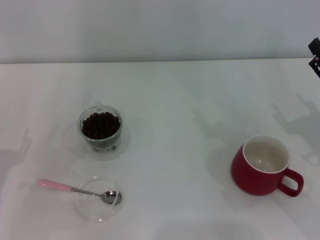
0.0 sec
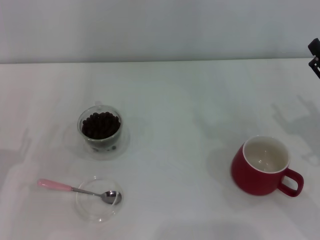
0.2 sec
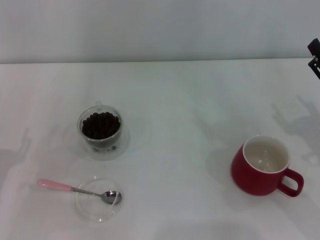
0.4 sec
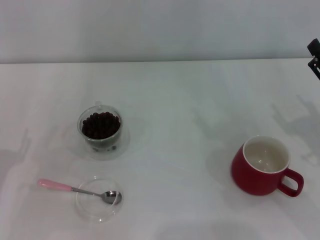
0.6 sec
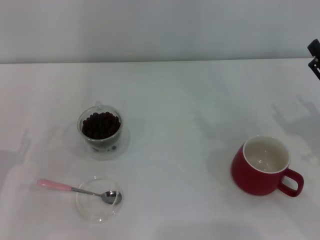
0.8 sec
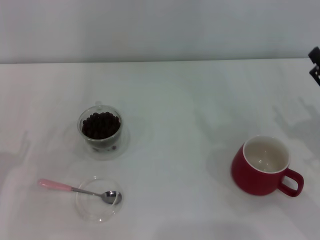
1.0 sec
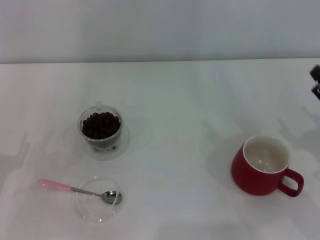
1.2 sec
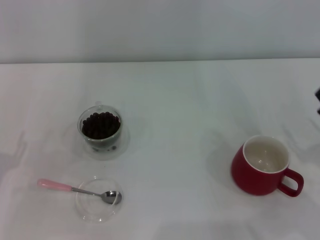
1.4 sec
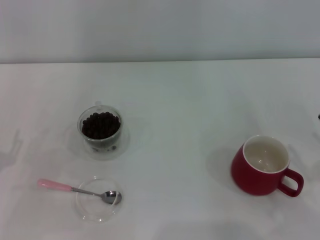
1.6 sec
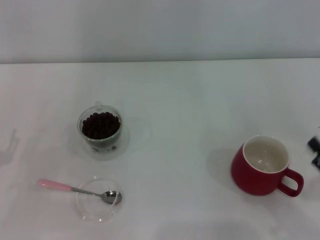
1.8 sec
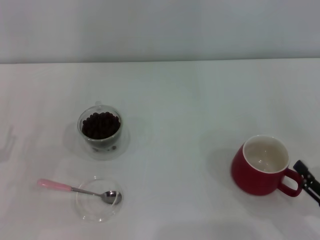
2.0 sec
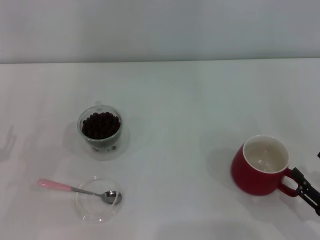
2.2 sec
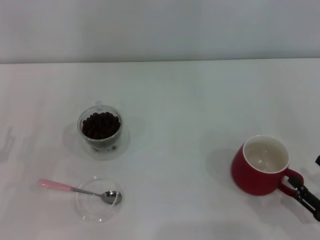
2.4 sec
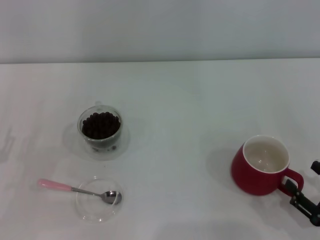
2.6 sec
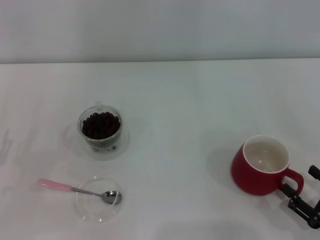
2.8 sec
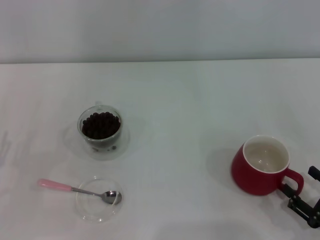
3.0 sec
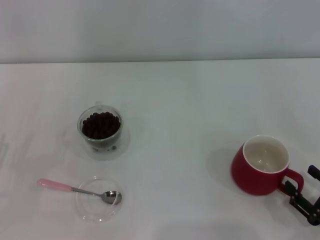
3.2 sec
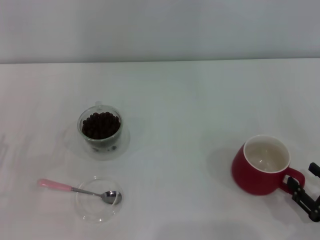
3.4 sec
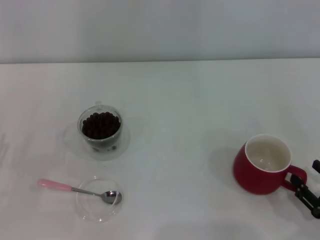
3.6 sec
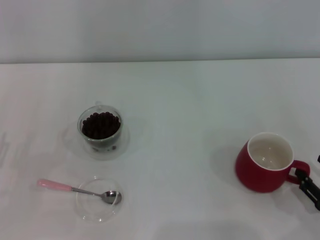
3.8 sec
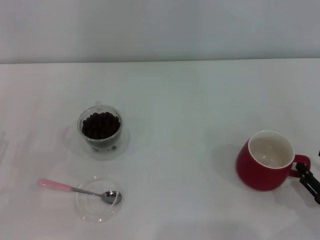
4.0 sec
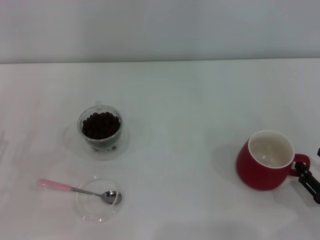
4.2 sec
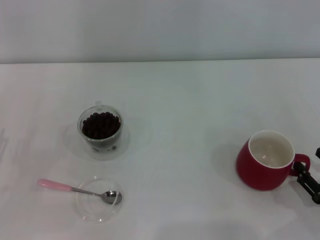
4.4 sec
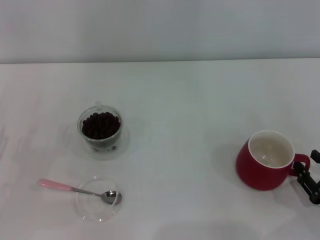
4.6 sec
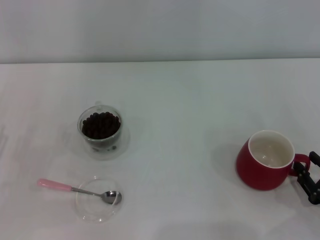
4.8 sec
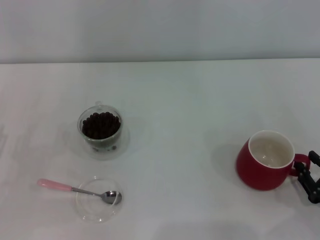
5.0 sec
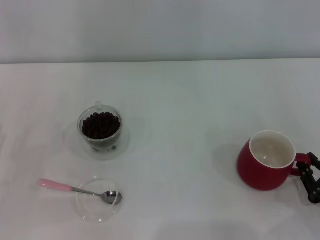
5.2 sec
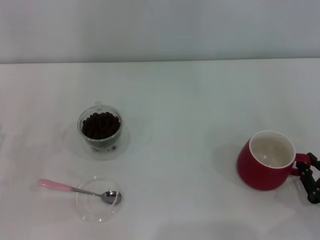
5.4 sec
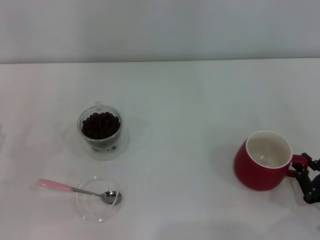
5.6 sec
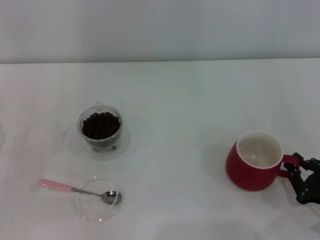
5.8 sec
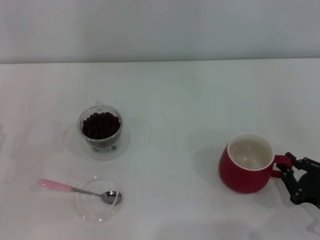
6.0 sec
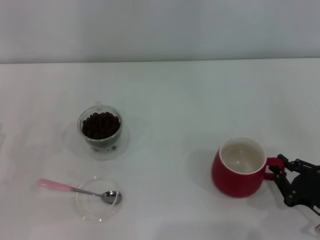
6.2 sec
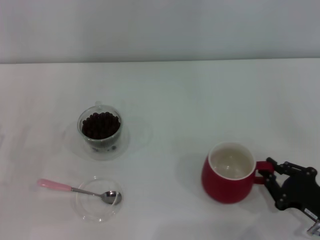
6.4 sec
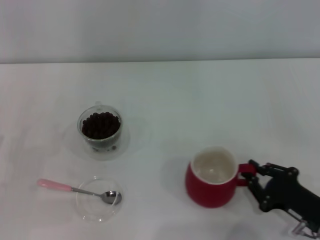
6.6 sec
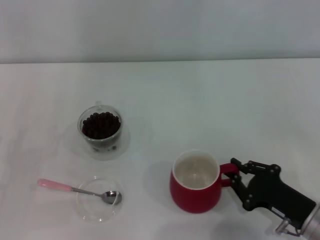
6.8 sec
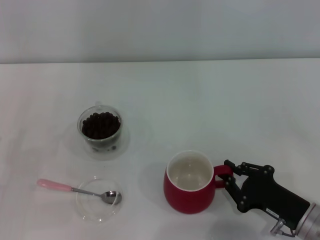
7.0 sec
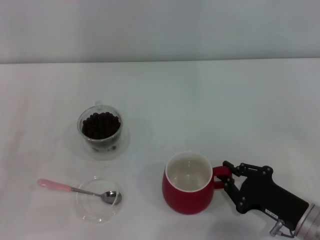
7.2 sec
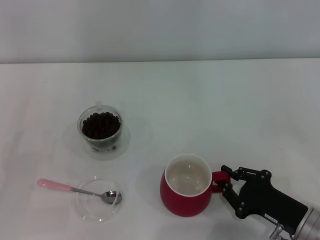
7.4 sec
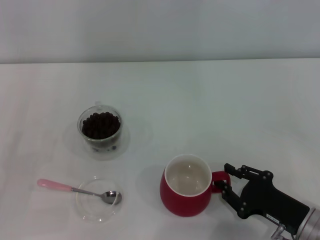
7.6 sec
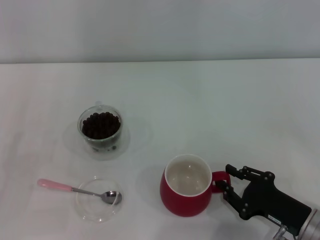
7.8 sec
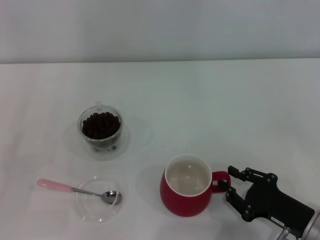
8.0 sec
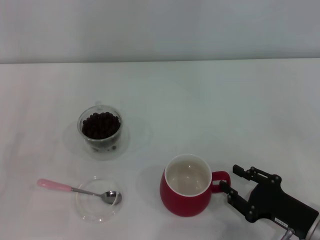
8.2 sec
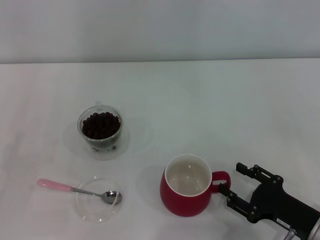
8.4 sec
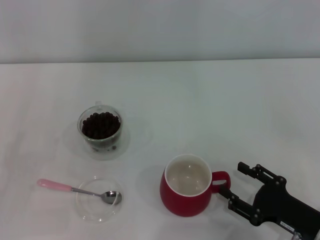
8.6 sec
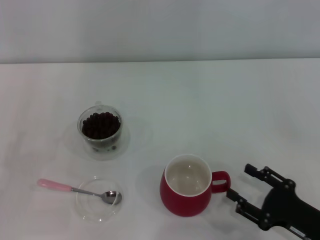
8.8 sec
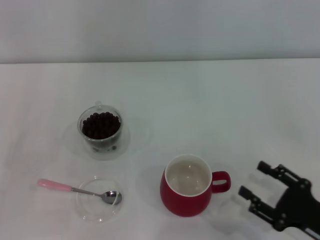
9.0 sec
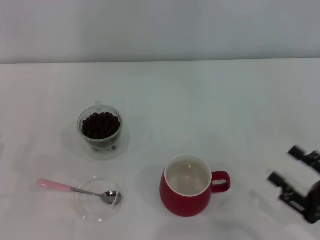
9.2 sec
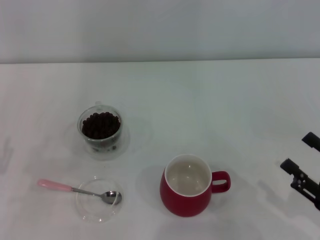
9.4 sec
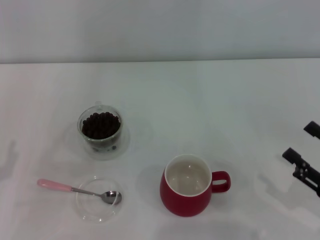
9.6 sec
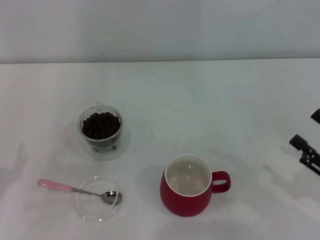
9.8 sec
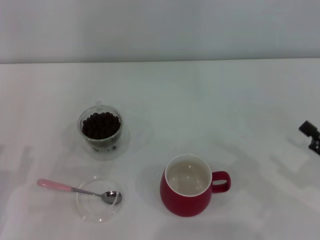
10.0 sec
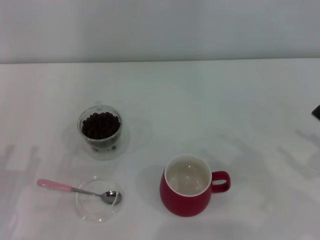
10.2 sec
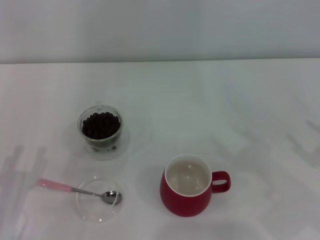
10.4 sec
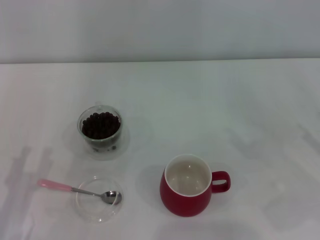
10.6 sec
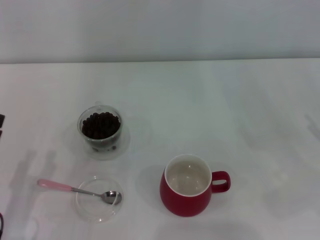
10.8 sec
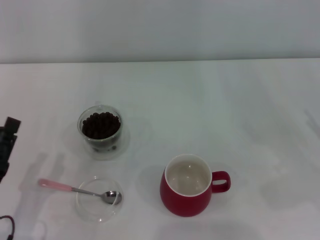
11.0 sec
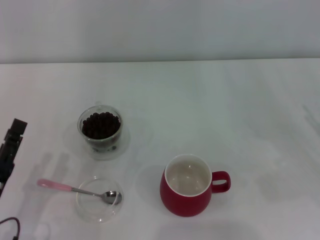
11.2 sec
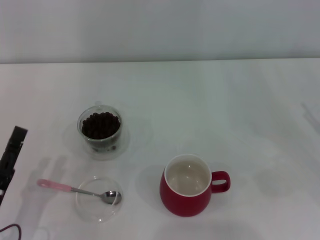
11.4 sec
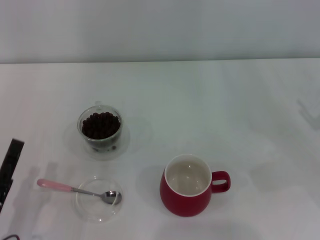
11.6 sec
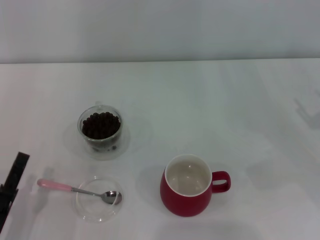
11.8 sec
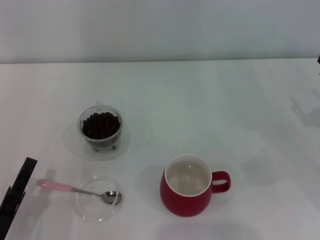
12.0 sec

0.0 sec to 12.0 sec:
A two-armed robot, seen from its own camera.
Task of the whole recording: Use a pink spoon to take out the coffee beans from the glass and pour them into the red cup.
Step, 0.0 sec to 8.6 sec: Move the cup to the center of view with the left gripper.
1.6 sec to 3.0 sec: The right gripper goes approximately 5 cm downward.
3.0 sec to 4.4 sec: The grippers stay close to where they were, moving slightly.
4.4 sec to 6.0 sec: The right gripper closes up.
6.0 sec to 7.6 sec: The right gripper moves to the left, some 5 cm.
7.6 sec to 9.0 sec: The right gripper changes place by approximately 5 cm, and opens.
9.0 sec to 10.4 sec: The right gripper shifts about 10 cm to the right, upward and forward.
10.4 sec to 12.0 sec: The left gripper shifts by approximately 5 cm.

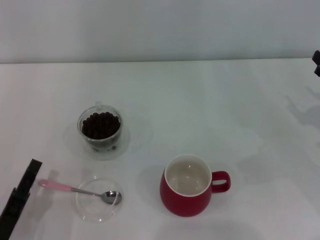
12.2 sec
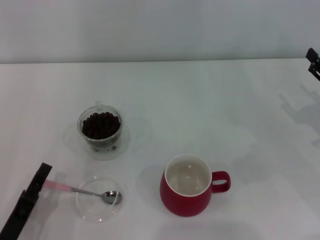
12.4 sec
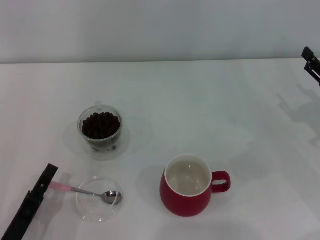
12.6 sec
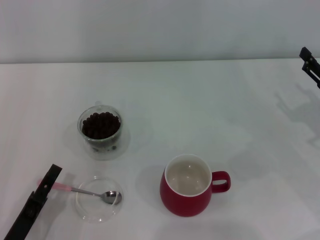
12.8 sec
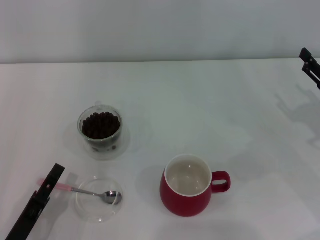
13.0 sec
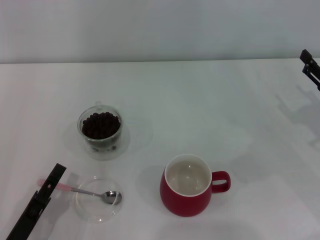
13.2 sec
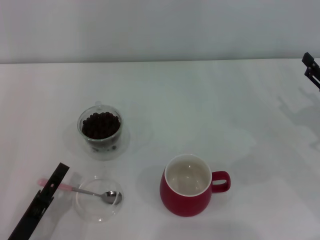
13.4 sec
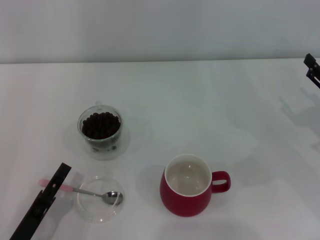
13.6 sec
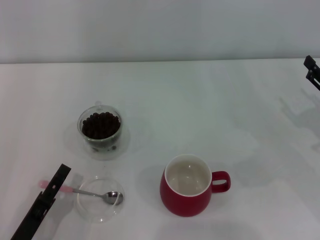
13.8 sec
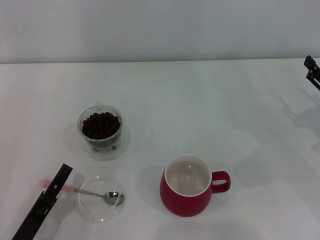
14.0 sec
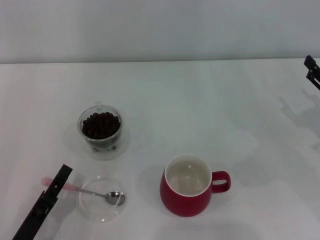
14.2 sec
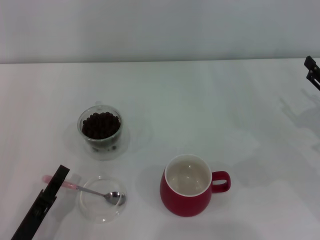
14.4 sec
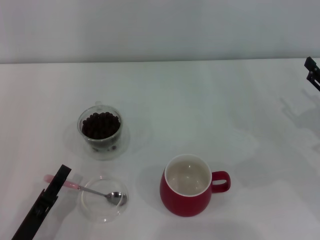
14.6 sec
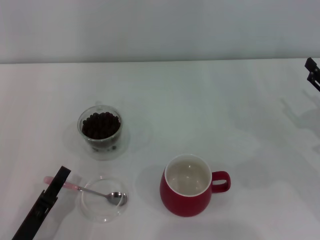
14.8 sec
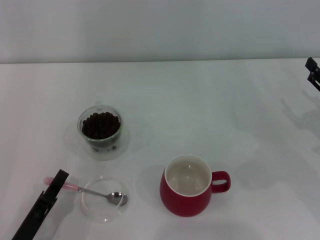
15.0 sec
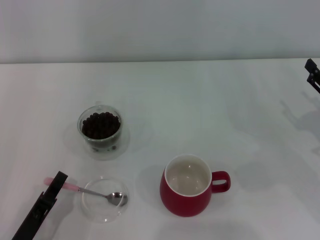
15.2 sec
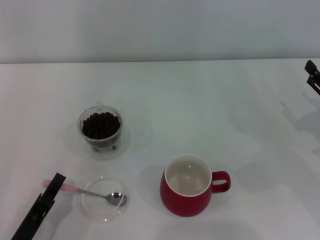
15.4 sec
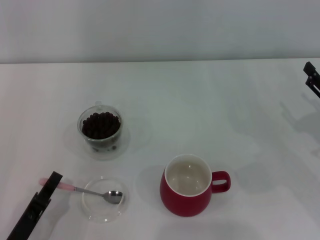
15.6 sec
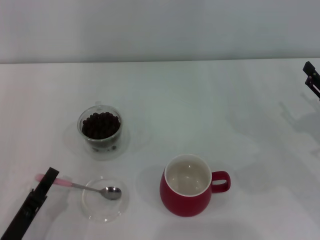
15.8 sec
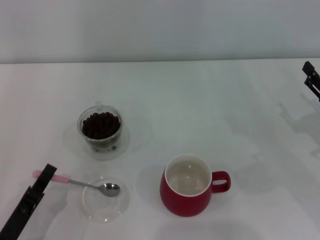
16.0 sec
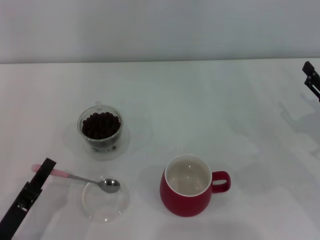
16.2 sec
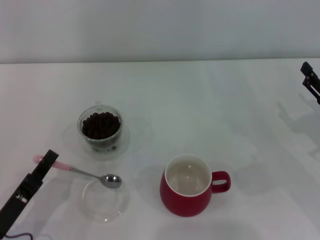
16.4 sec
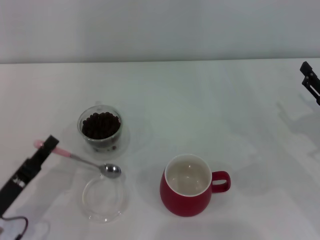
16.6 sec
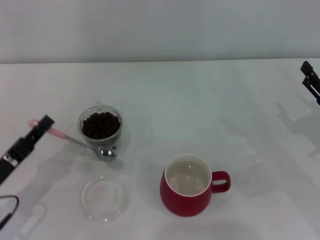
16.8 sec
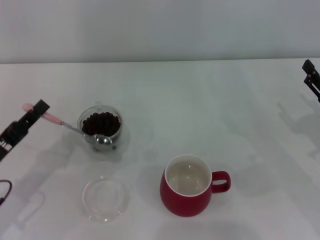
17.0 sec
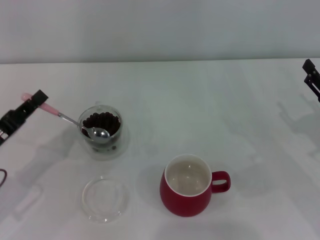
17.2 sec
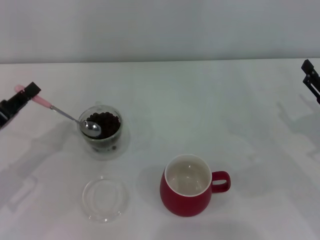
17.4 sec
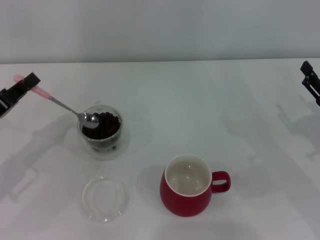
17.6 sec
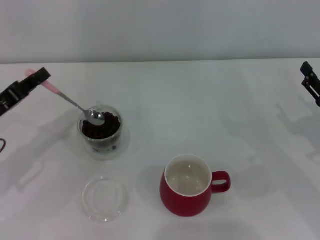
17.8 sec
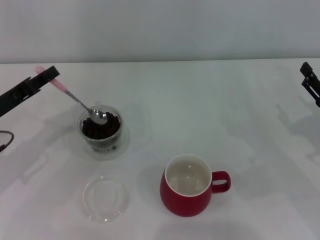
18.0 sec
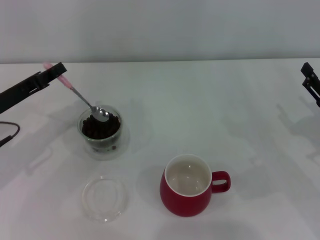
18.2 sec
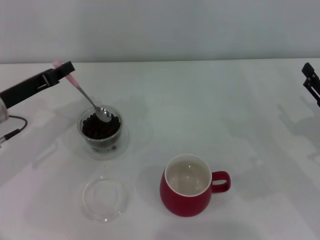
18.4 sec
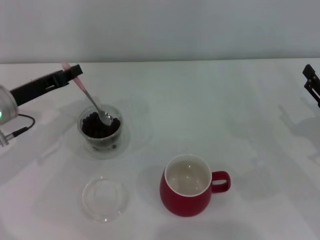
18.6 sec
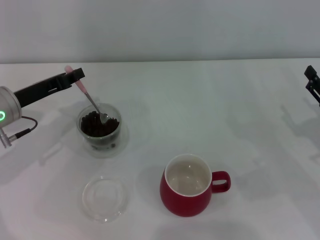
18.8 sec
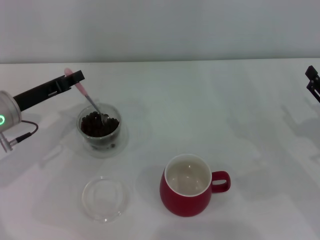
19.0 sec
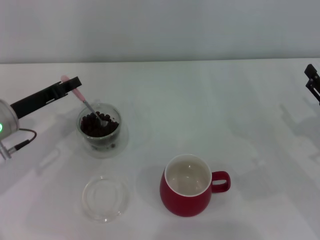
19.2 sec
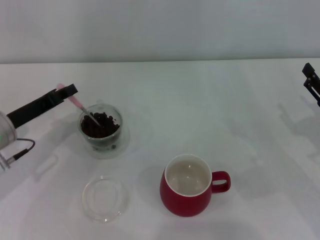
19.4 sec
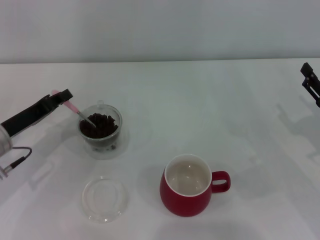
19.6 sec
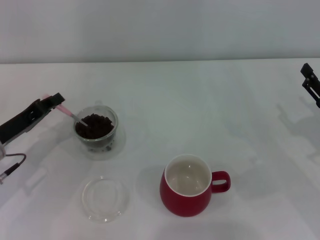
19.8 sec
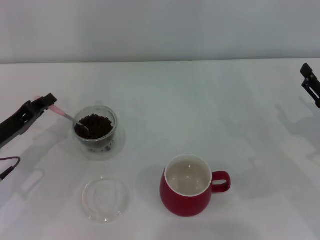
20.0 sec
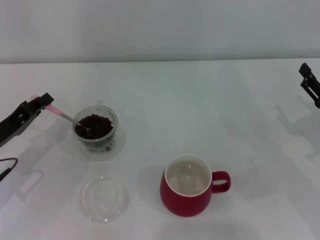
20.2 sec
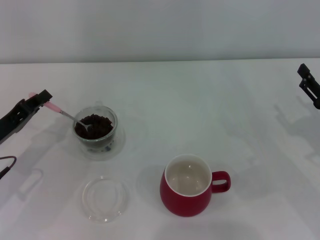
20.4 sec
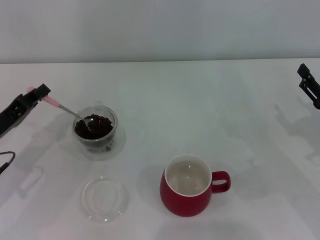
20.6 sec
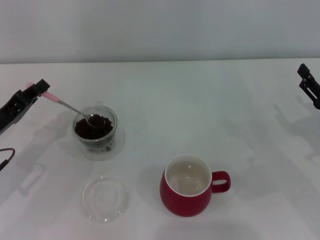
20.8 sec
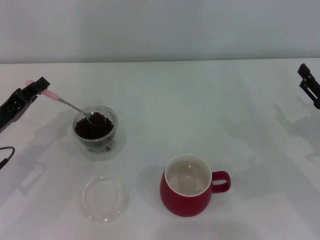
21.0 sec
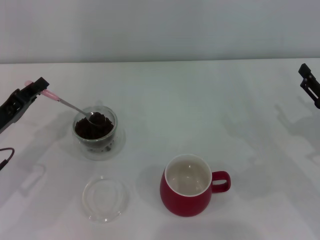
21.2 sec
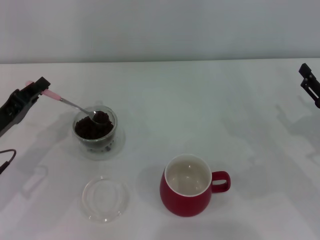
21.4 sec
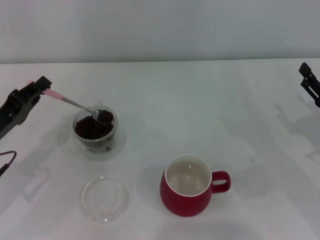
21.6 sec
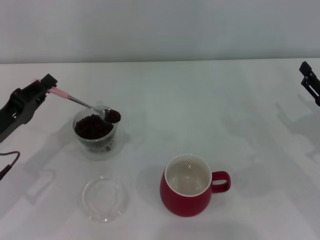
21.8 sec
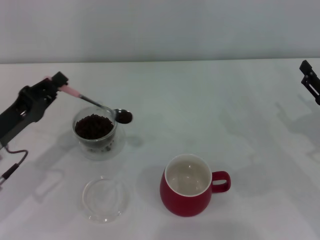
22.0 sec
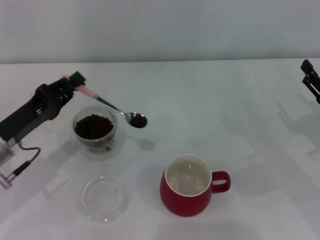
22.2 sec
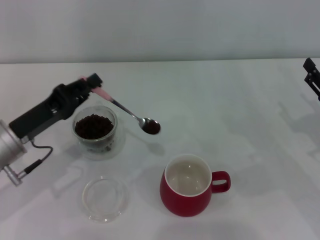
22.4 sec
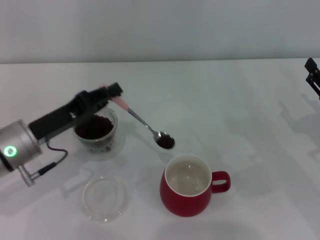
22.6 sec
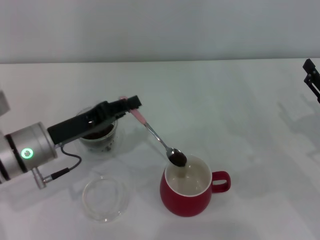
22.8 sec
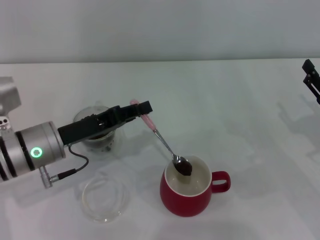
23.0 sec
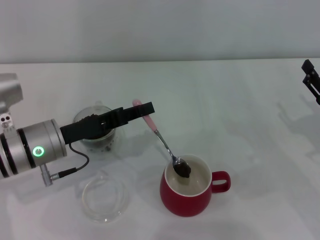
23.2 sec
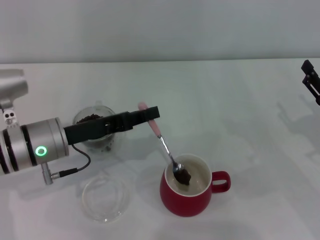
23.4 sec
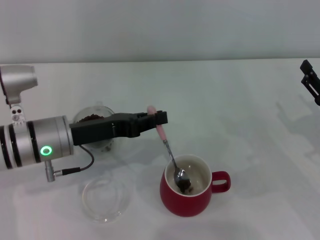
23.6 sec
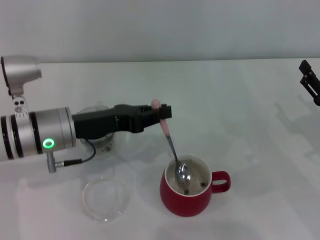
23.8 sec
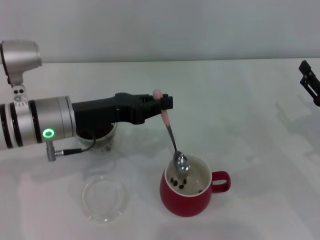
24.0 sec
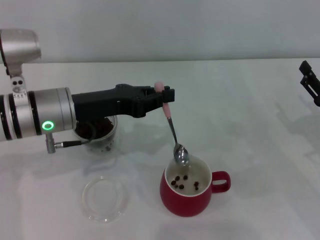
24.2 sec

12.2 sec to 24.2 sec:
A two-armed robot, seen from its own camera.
Task of the whole recording: Use a pink spoon to take out the coffee beans from the glass and pour them into the red cup.
Step, 12.2 sec to 16.2 sec: Pick up the spoon with the right gripper.
12.2 sec to 13.8 sec: The grippers stay close to where they were, moving slightly.
13.8 sec to 15.2 sec: The left gripper closes up.
15.2 sec to 16.6 sec: The left gripper shifts by some 5 cm.
16.6 sec to 18.2 sec: The left gripper is displaced forward and upward by some 15 cm.
18.2 sec to 21.2 sec: There are only small adjustments of the grippers.
21.2 sec to 22.6 sec: The left gripper heads to the right, covering about 5 cm.
22.6 sec to 24.2 sec: The left gripper heads to the right and upward, covering approximately 10 cm.
